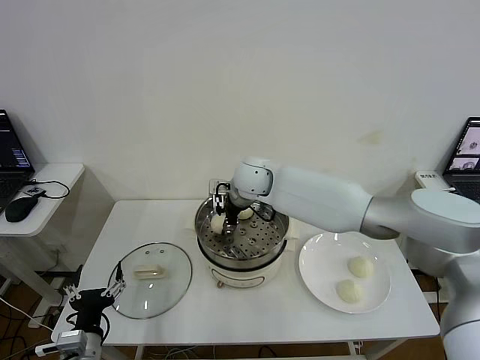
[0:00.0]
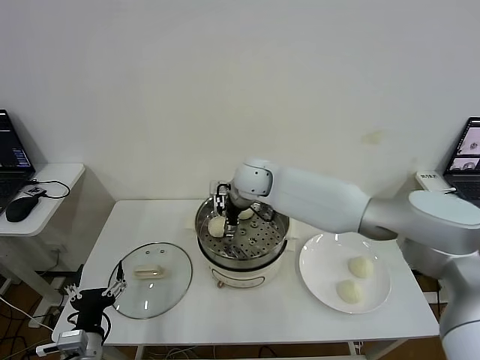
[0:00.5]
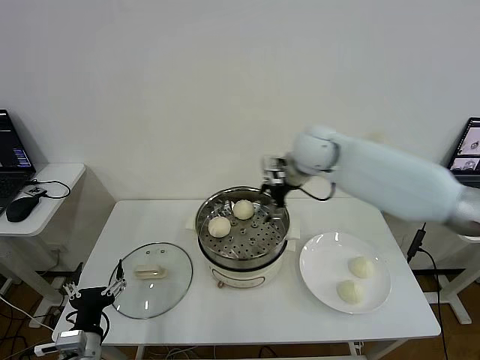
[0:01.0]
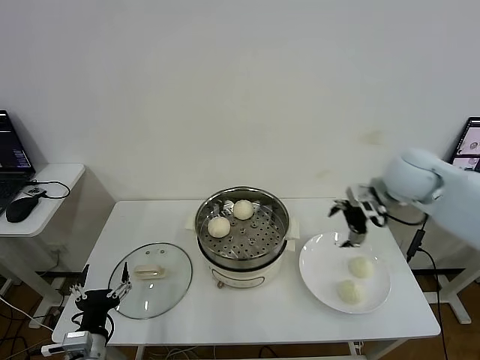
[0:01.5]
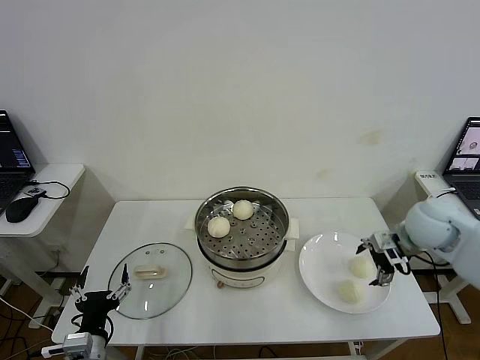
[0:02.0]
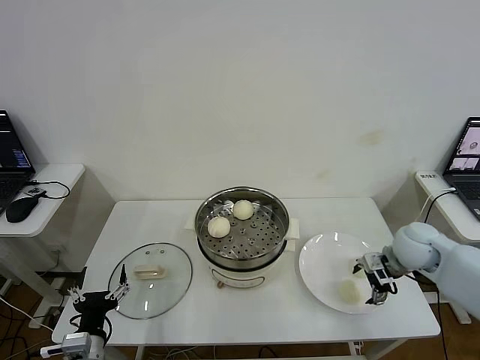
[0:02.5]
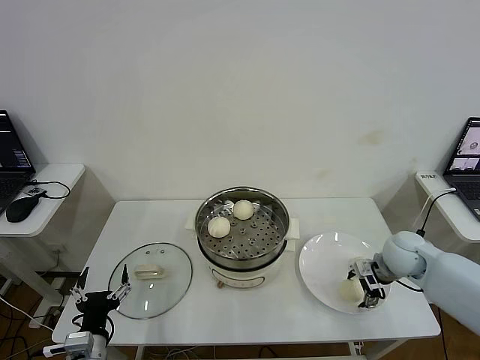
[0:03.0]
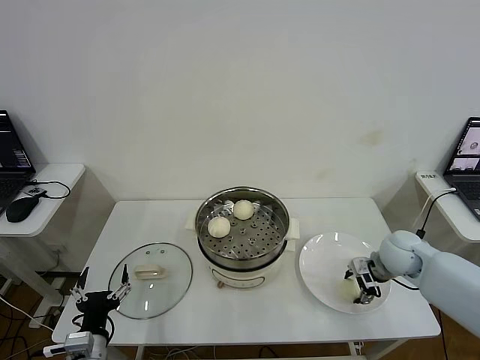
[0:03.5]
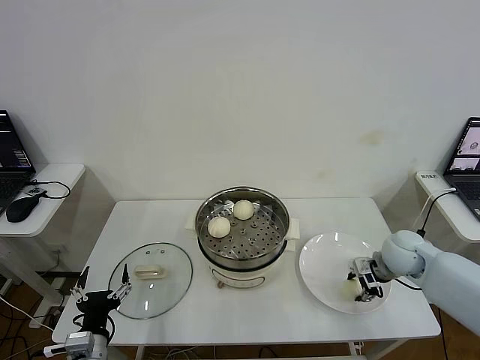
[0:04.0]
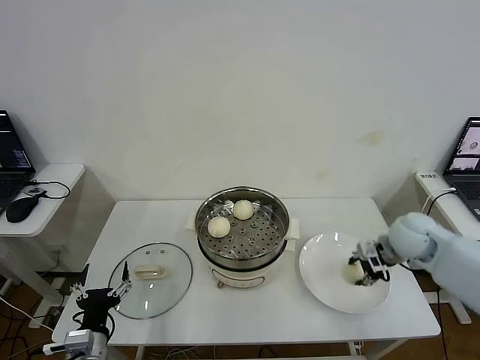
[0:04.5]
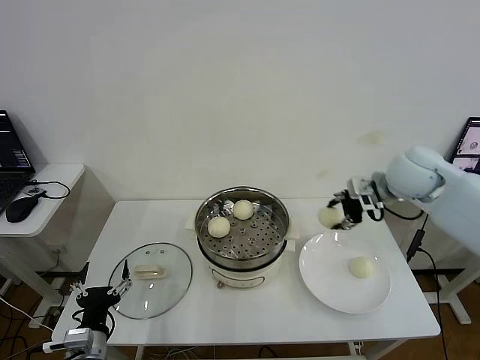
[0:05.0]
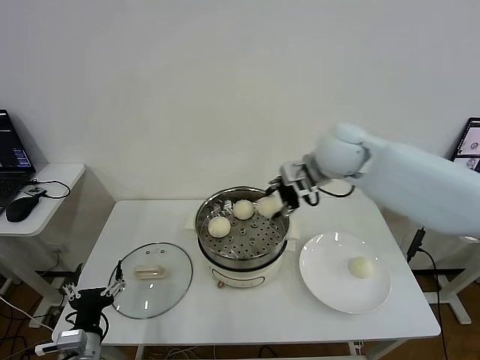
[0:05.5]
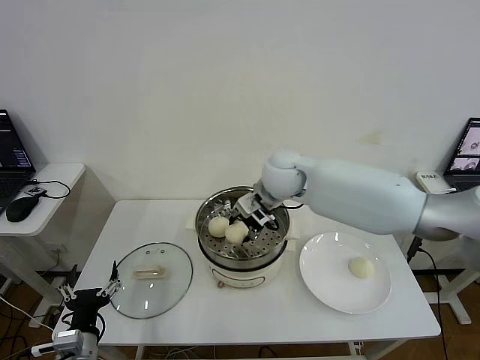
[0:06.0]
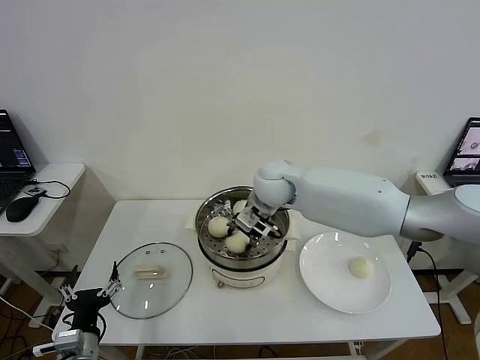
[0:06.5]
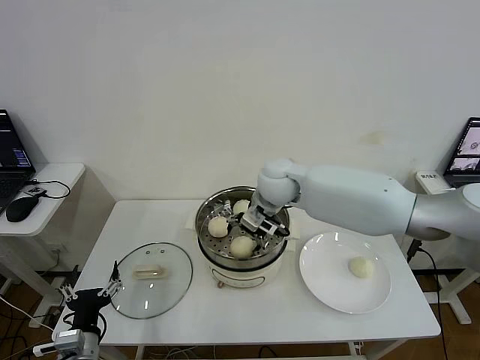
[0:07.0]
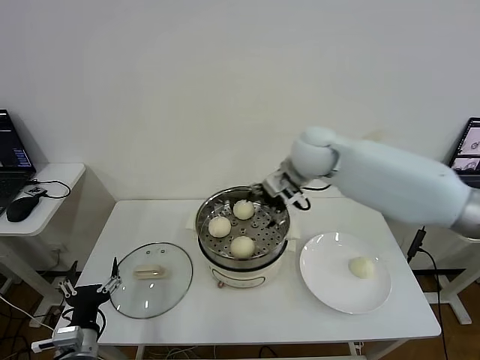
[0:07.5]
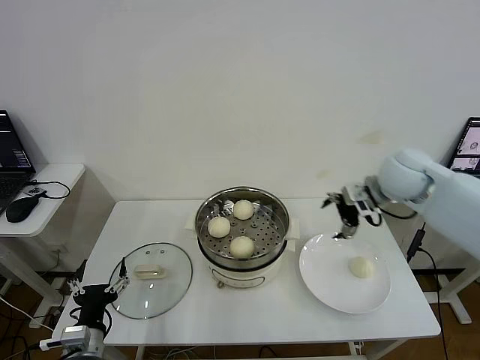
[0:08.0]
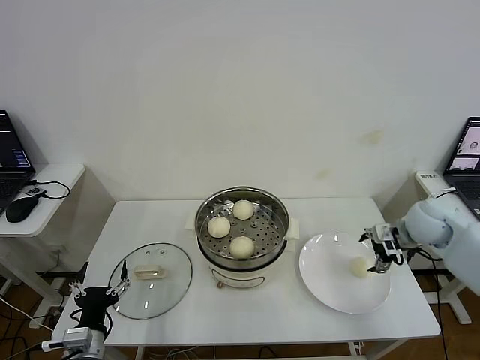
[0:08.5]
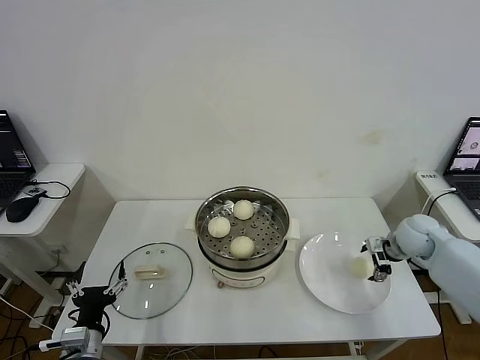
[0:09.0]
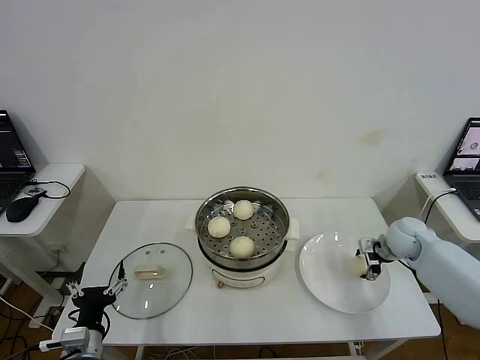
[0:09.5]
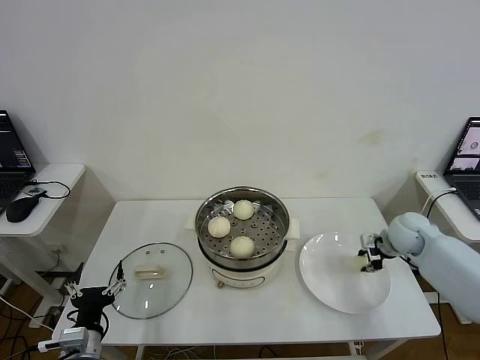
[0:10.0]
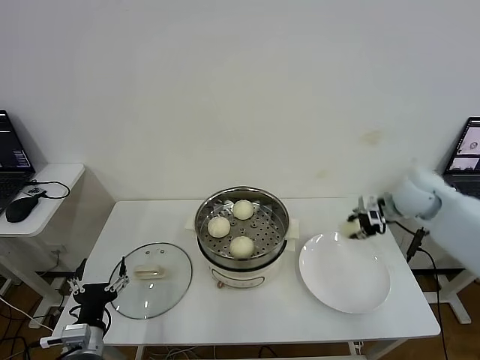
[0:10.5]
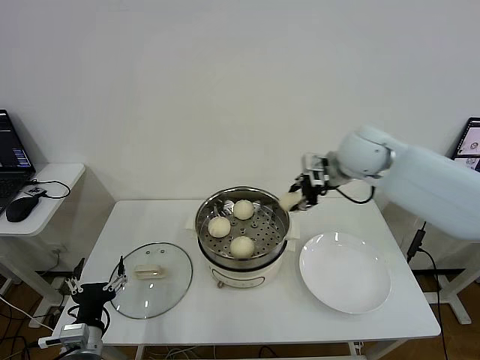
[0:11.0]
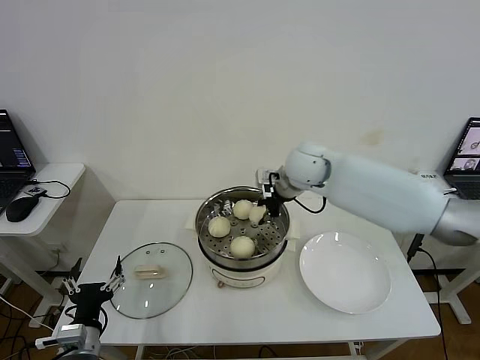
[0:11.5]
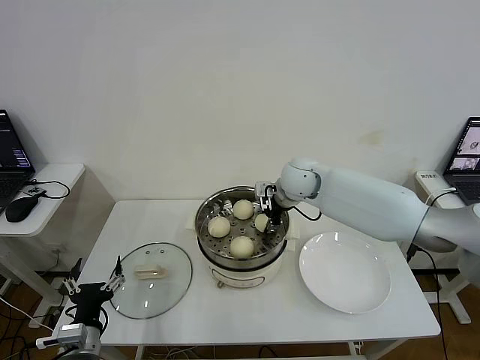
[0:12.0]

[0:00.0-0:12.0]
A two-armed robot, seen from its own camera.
Step, 0:00.5 to 0:03.5: Grasp the baozi in the plate with right gripper.
Step, 0:04.0 to 0:07.0: Place the baozi on the steamer with right gripper.
Step, 0:07.5 to 0:09.5: Grasp the baozi in the plate with right gripper.
0:00.0 to 0:02.0: The right gripper goes approximately 35 cm to the right, and opens its fingers.
0:02.0 to 0:04.0: The right gripper heads downward, covering some 10 cm, and closes.
0:04.0 to 0:06.0: The right gripper shifts roughly 35 cm to the left and upward.
0:06.0 to 0:08.0: The right gripper moves to the right, roughly 25 cm, and opens up.
0:08.0 to 0:10.0: The right gripper heads downward and to the right, covering about 20 cm, and closes.
0:10.0 to 0:12.0: The right gripper moves to the left and upward, roughly 30 cm.

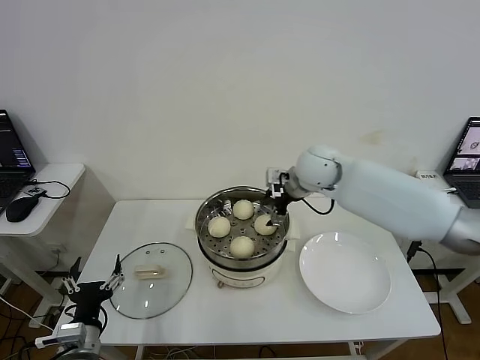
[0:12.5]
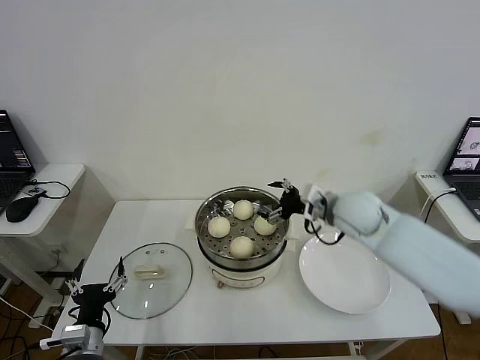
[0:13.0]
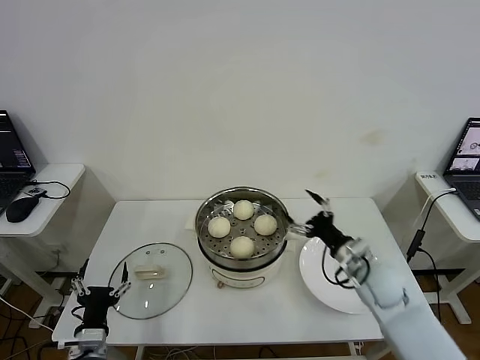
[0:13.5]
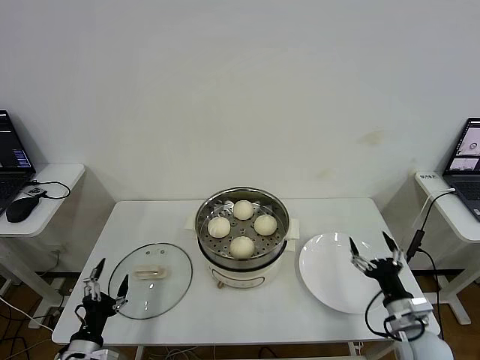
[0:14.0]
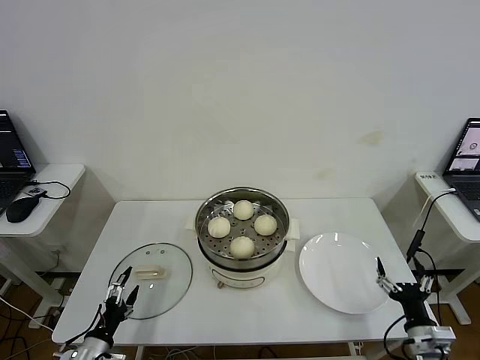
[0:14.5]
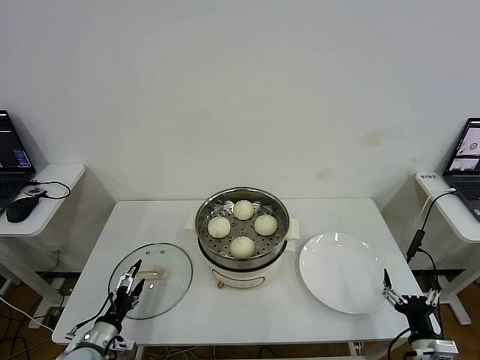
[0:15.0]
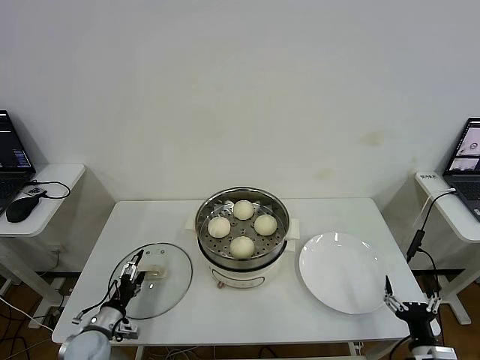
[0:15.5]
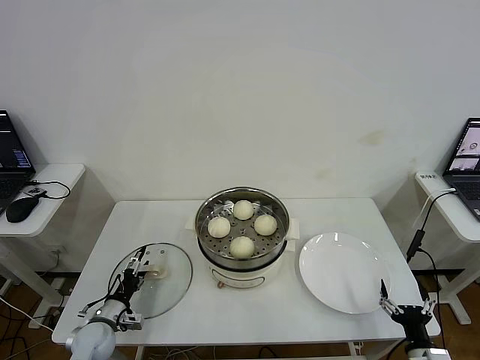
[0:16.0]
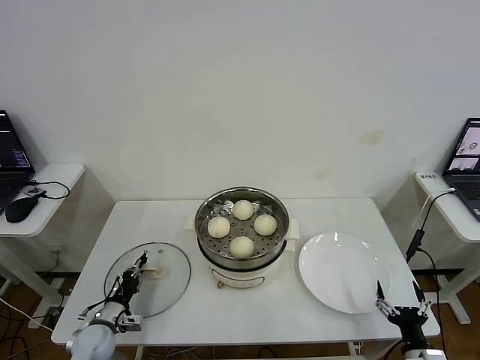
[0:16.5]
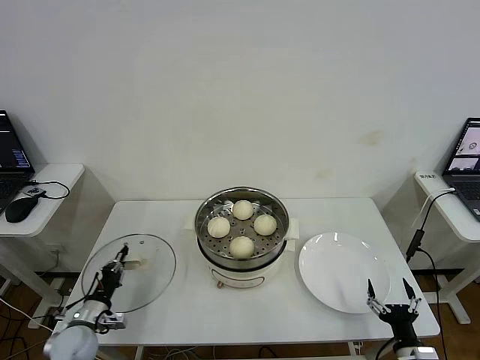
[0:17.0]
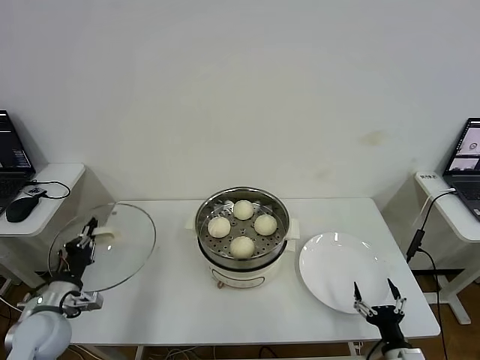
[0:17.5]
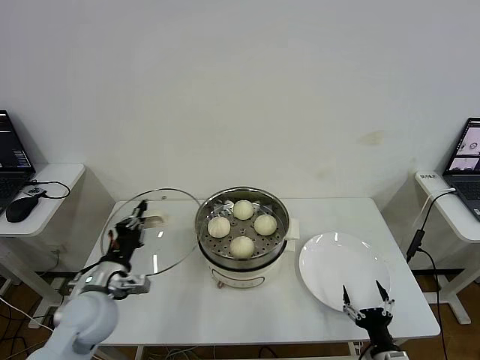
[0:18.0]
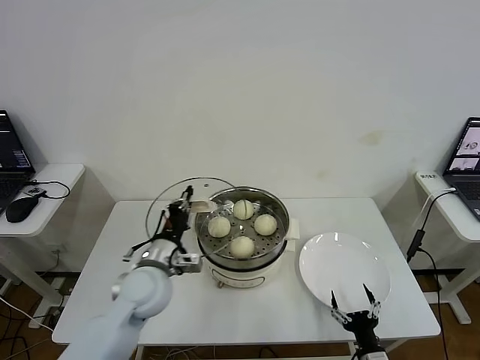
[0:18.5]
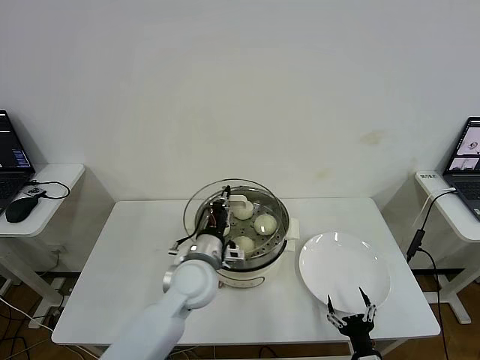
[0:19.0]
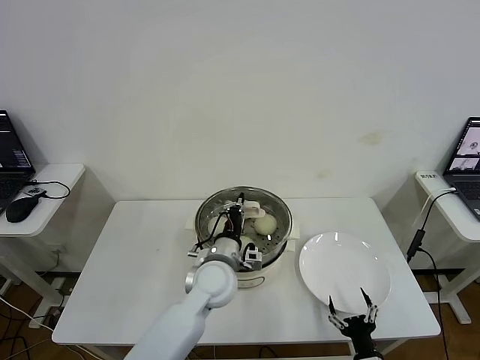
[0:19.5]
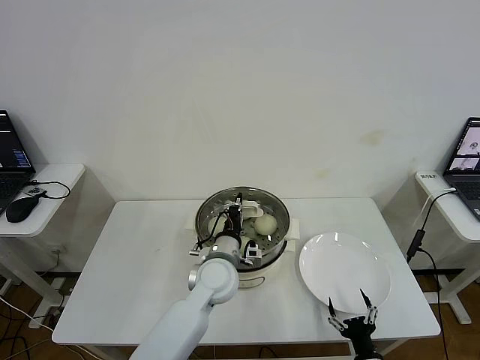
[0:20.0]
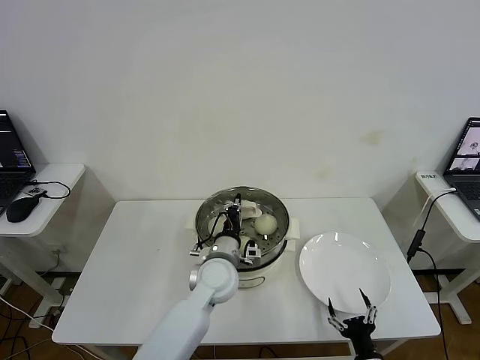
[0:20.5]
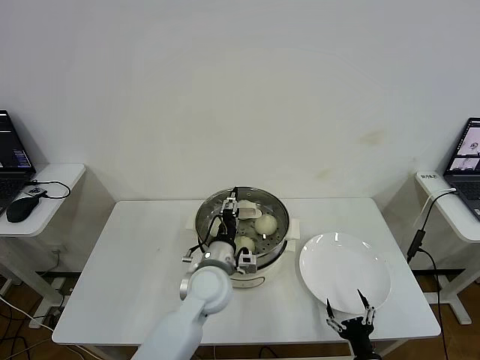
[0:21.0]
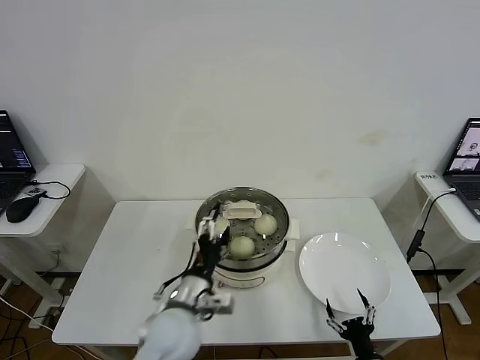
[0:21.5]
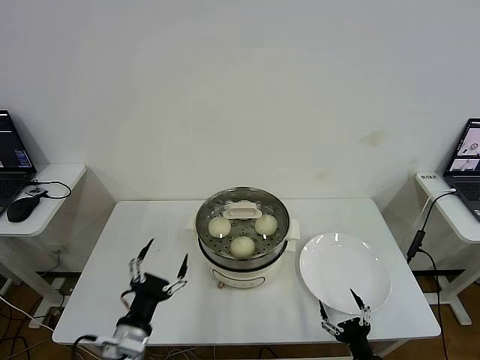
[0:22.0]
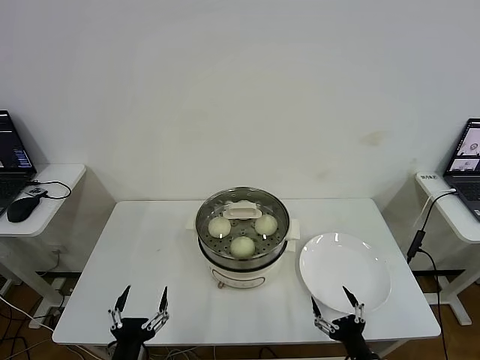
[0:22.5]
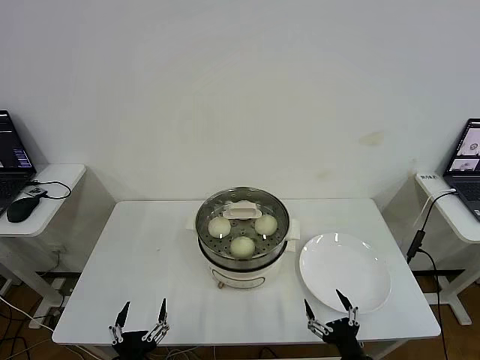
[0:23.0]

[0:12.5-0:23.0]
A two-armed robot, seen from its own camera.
Step, 0:12.5 to 0:16.5: Grasp the pot lid with left gripper.
Step, 0:17.0 to 0:21.0: Place the pot lid on the steamer with left gripper.
0:12.5 to 0:14.5: The right gripper moves backward, downward and to the right, some 50 cm. Meanwhile the left gripper travels downward by approximately 5 cm.
0:14.5 to 0:16.5: The left gripper is displaced forward by roughly 10 cm, and closes up, while the right gripper changes place by approximately 5 cm.
0:16.5 to 0:19.0: The left gripper shifts roughly 35 cm to the right and upward; the right gripper travels to the left by roughly 10 cm.
0:19.0 to 0:21.0: The left gripper shifts by about 5 cm, and opens up.
0:21.0 to 0:23.0: The left gripper moves backward and to the left, some 30 cm, and opens up. The right gripper is displaced upward by some 5 cm.
